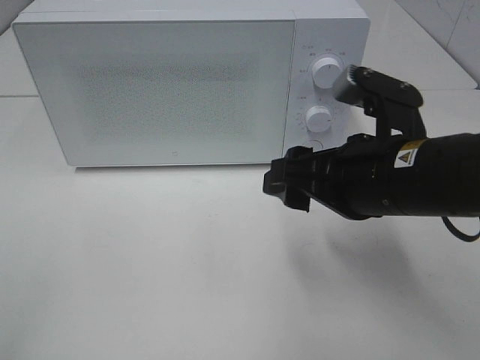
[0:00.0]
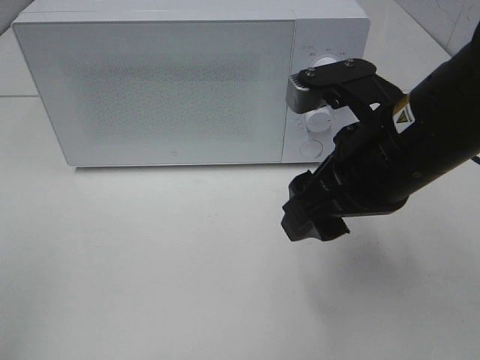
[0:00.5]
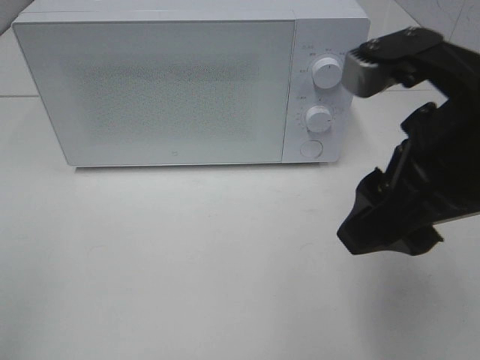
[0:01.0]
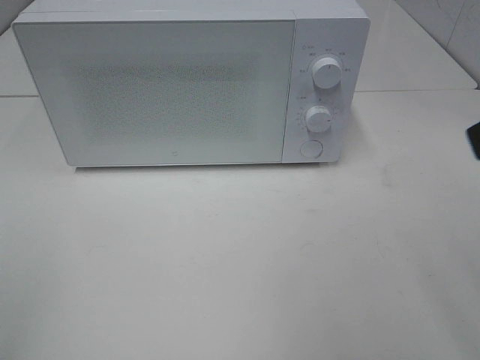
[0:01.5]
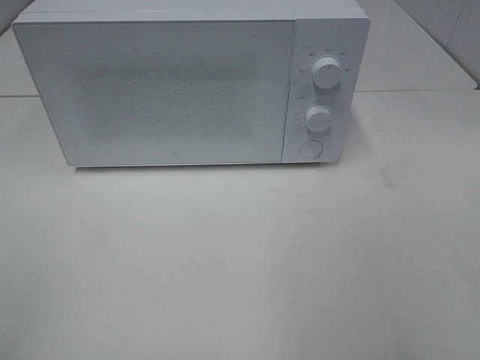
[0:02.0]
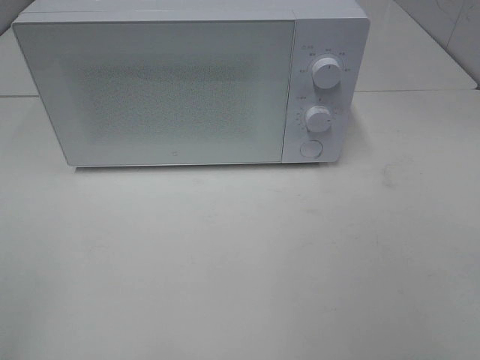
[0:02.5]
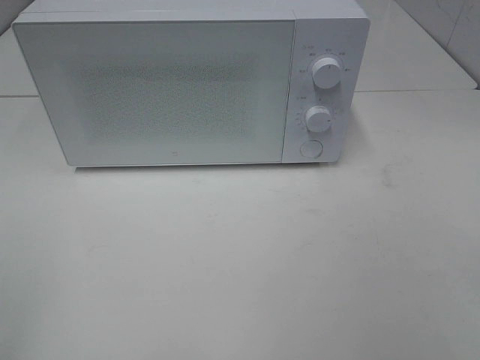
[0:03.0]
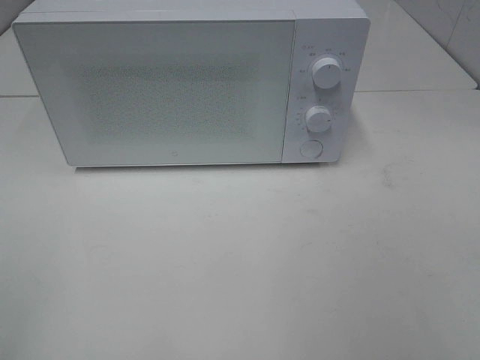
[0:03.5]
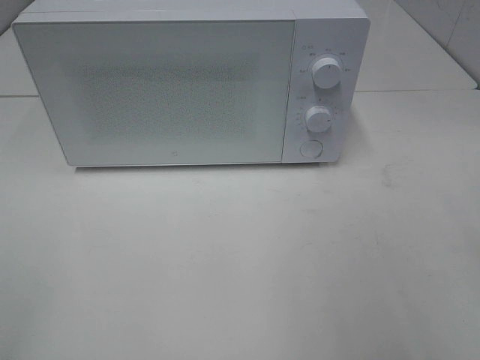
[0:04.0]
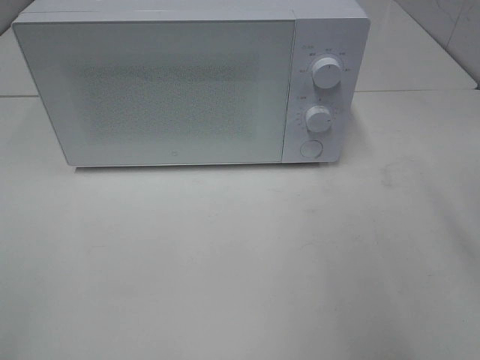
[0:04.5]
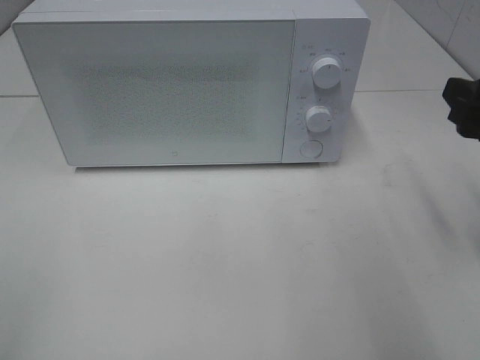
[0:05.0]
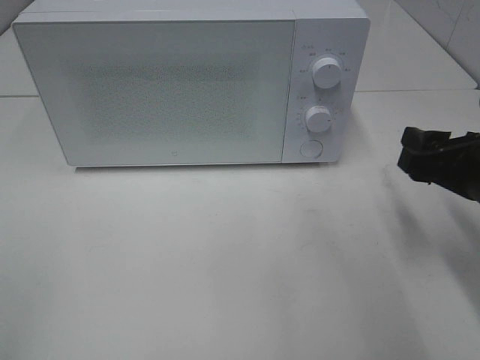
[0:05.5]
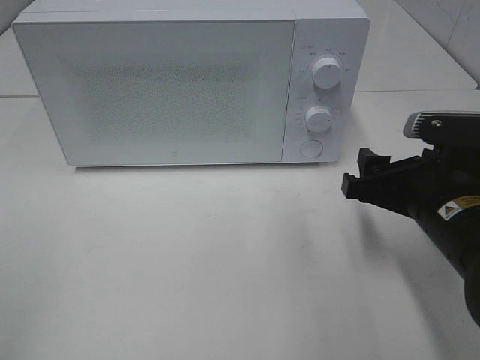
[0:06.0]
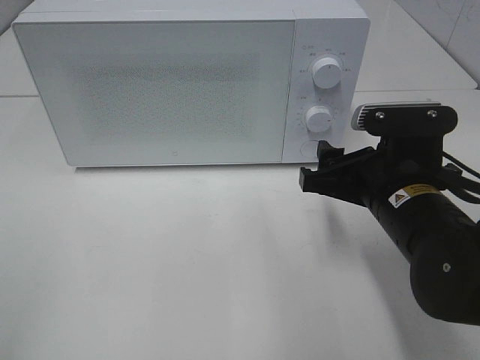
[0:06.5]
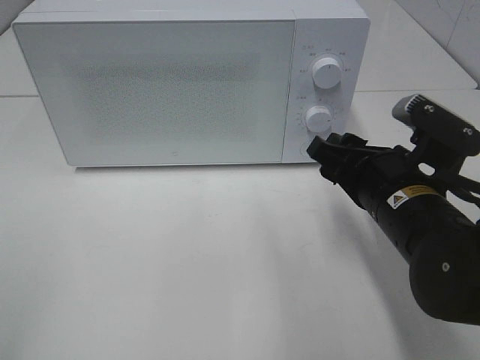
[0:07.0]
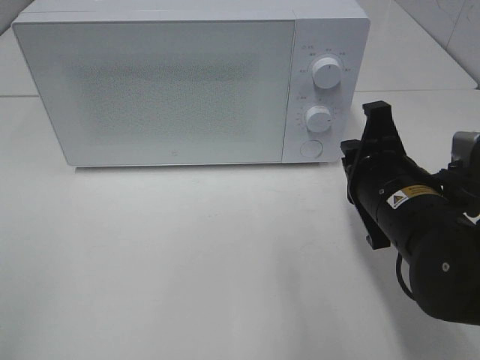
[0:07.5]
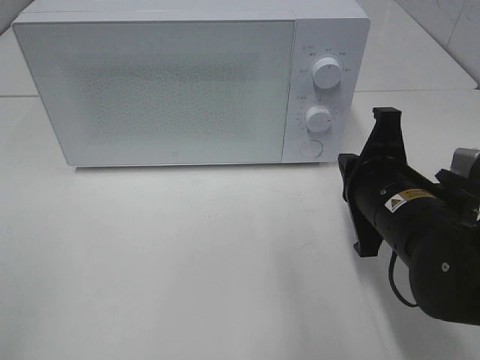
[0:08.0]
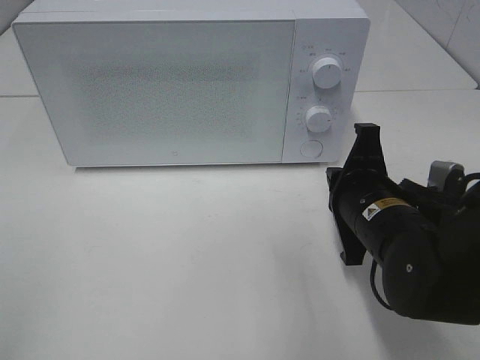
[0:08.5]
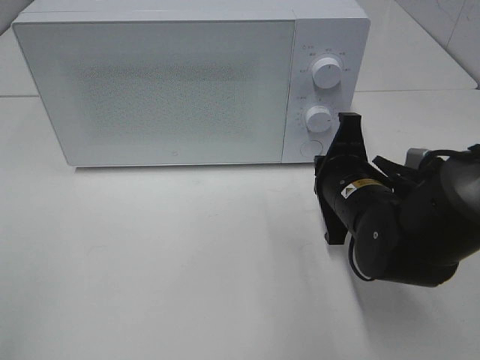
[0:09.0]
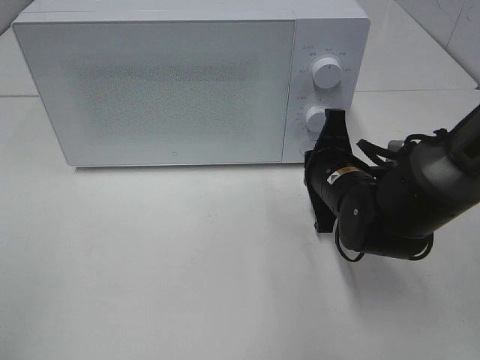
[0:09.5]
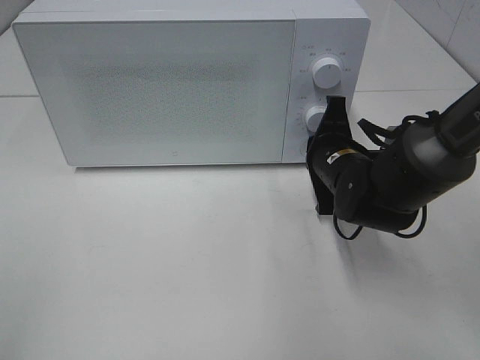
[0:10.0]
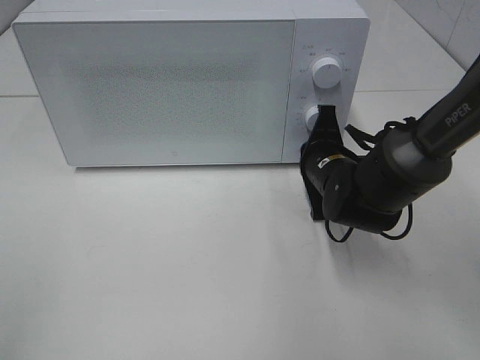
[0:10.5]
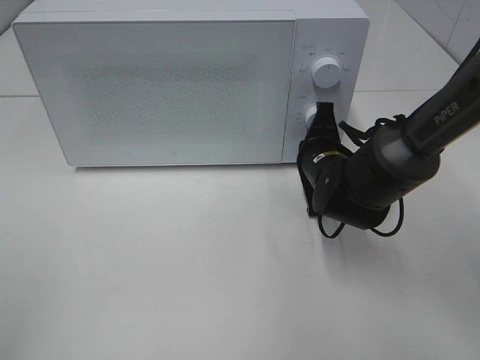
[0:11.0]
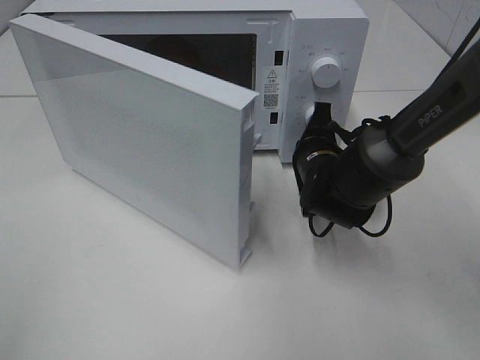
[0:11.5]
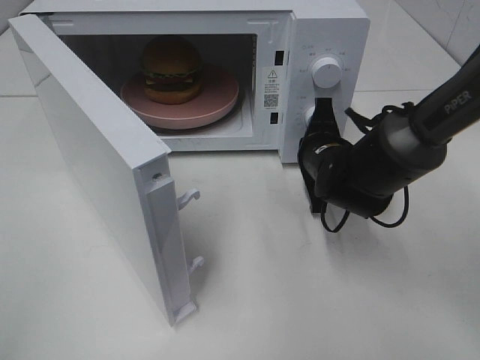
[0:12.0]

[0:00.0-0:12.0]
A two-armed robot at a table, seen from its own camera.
Task of the whole recording: Heat the burger.
0:00.0 to 0:02.0: The right gripper travels backward, to the right and upward by about 25 cm.
0:04.0 to 0:06.0: The right gripper shifts some 20 cm downward, forward and to the left.
0:06.0 to 0:08.0: The right gripper closes.
0:08.0 to 0:10.0: The right gripper is displaced forward by roughly 10 cm.

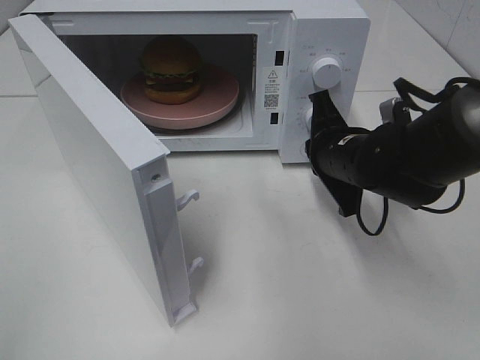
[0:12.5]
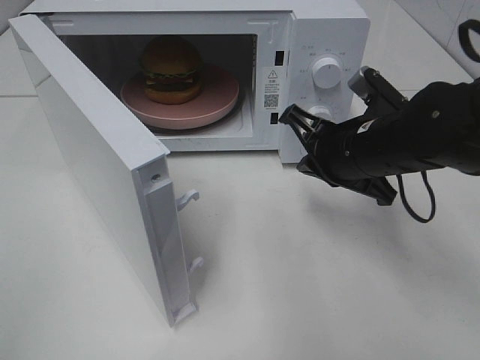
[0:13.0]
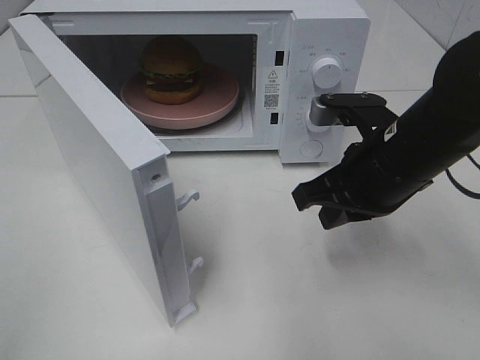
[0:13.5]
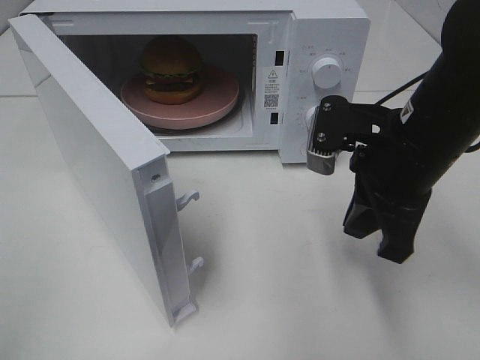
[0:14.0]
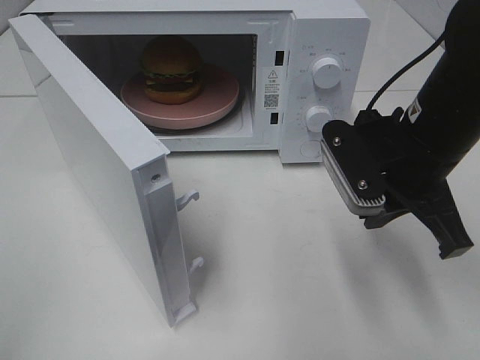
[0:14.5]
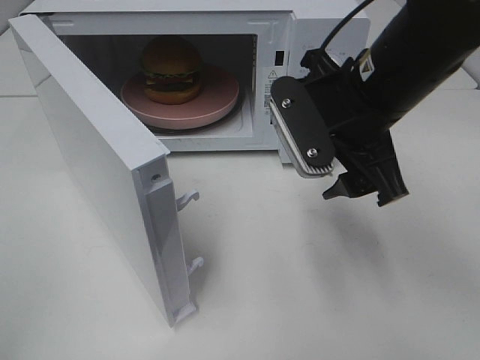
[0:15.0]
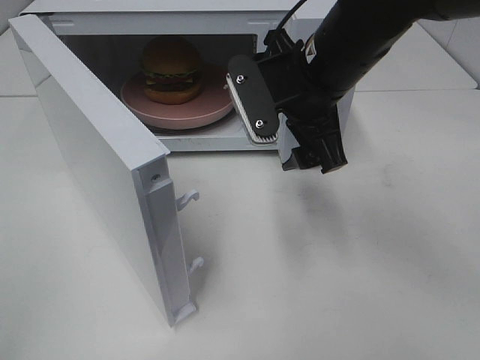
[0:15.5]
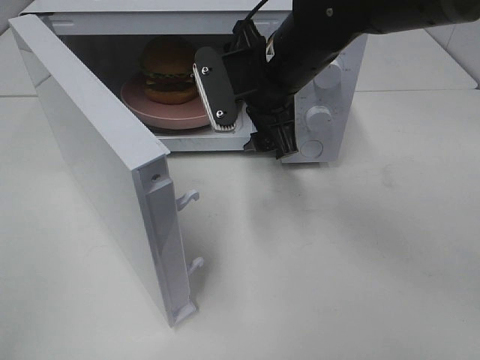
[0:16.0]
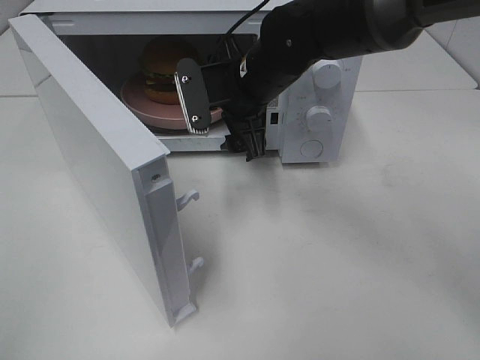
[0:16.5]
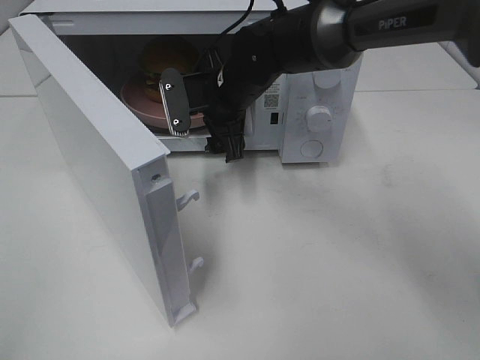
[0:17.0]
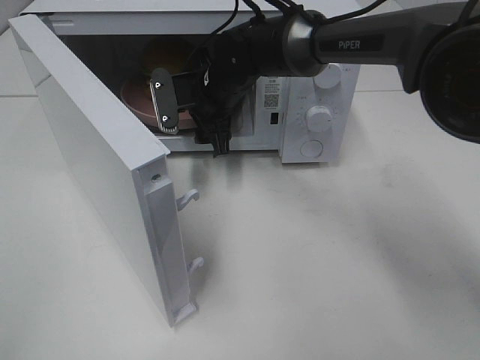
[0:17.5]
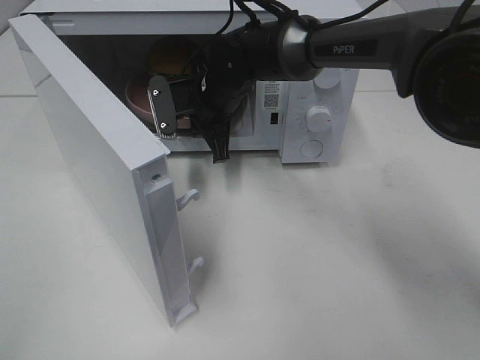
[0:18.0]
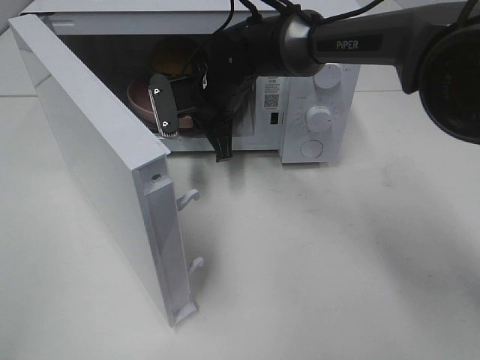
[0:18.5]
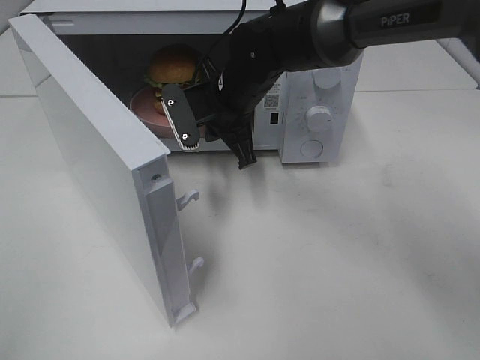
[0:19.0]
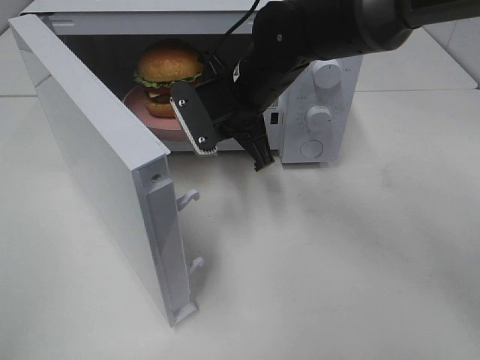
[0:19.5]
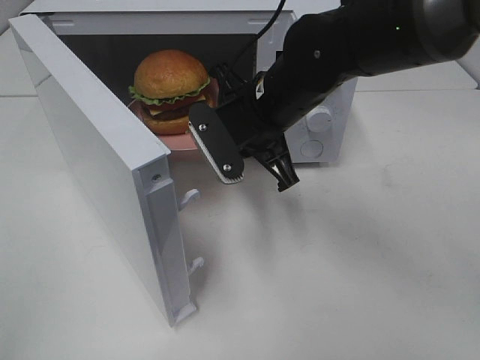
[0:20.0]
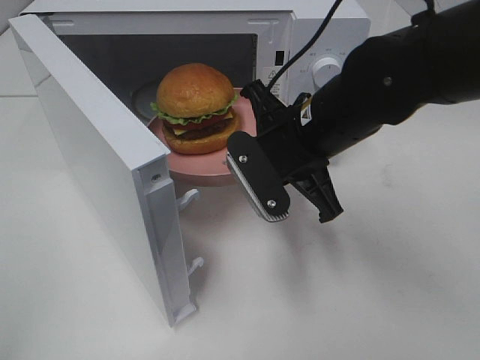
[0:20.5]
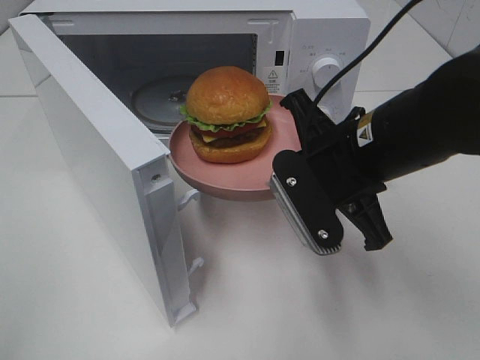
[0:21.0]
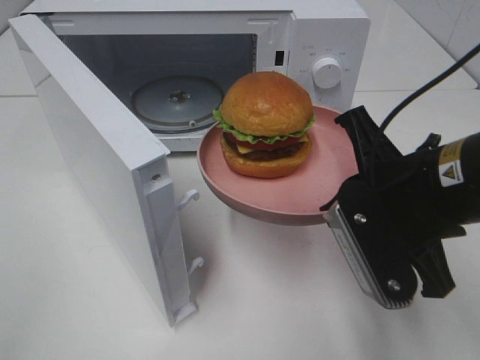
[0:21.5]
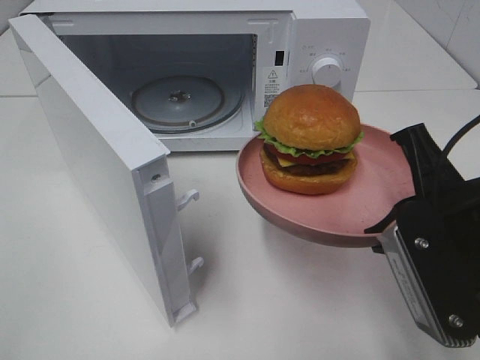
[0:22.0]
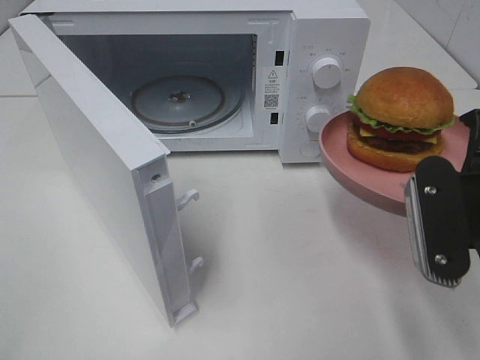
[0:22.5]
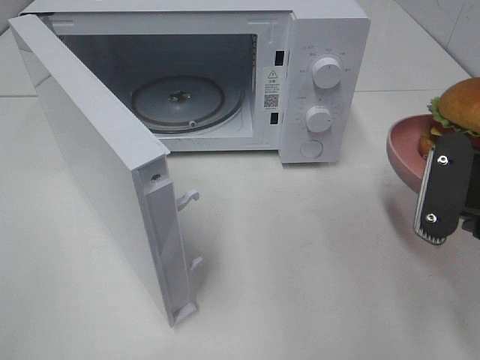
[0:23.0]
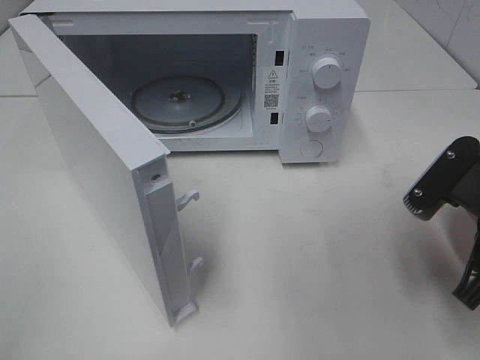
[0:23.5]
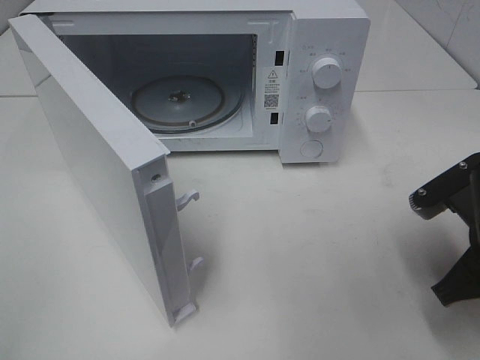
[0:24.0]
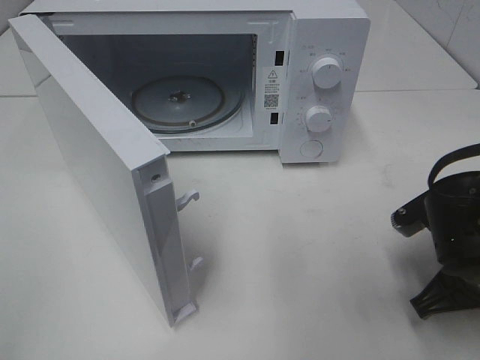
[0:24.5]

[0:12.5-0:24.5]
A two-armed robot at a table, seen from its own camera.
Task of the whole recording: Heat the burger.
Step, 0:13.0 to 0:17.5: Right hand: grab the plate with the hamburger.
0:12.5 to 0:14.5: The right gripper travels upward and backward by some 10 cm.
0:14.5 to 0:16.5: The right gripper moves to the left and forward, some 20 cm, and opens.
0:16.5 to 0:18.5: The right gripper heads forward, covering approximately 5 cm, and closes up.
0:18.5 to 0:20.5: The right gripper shifts roughly 20 cm backward and to the right.
0:20.5 to 0:22.5: The right gripper travels backward and to the right by approximately 15 cm.
0:22.5 to 0:24.5: The right gripper travels downward by approximately 10 cm.

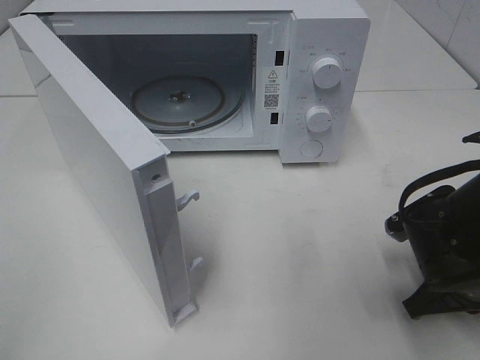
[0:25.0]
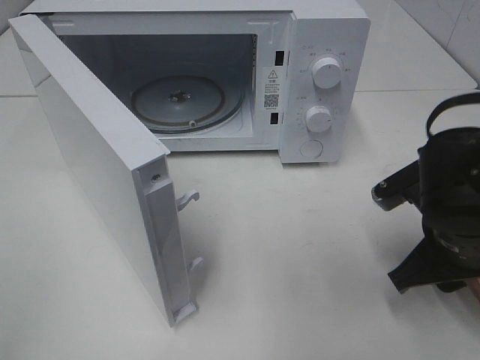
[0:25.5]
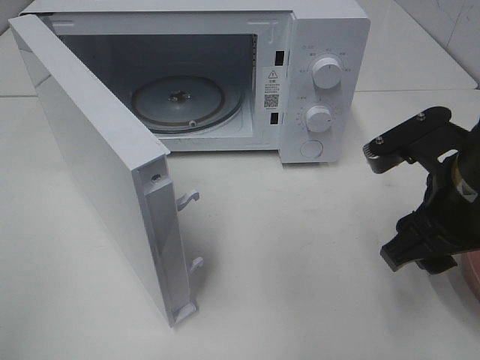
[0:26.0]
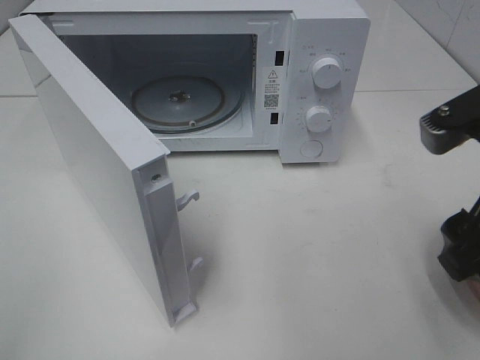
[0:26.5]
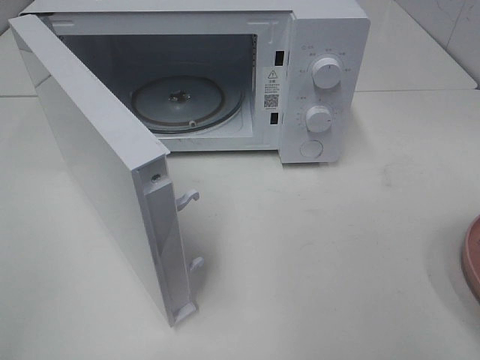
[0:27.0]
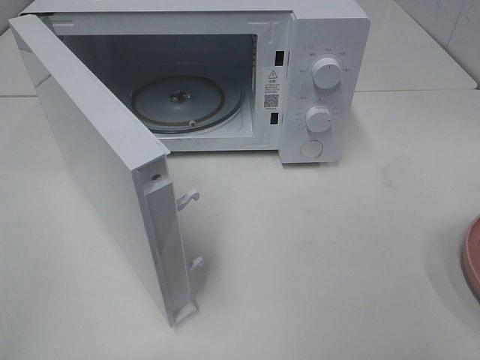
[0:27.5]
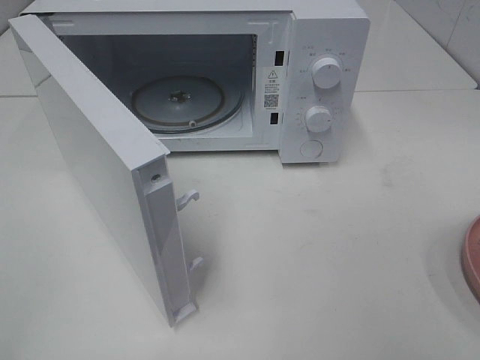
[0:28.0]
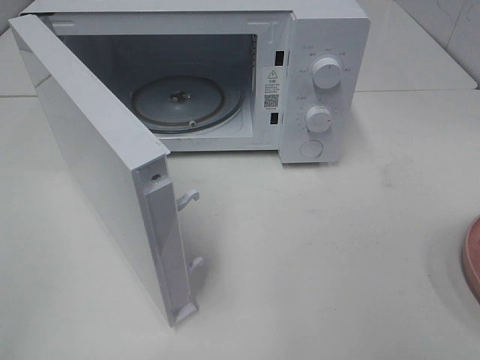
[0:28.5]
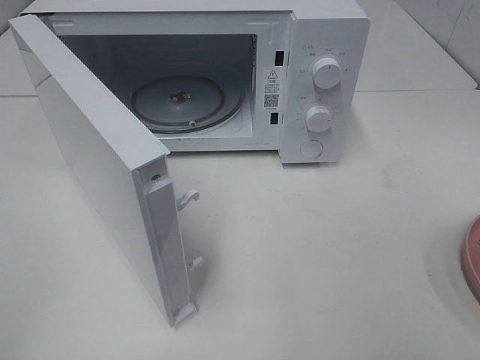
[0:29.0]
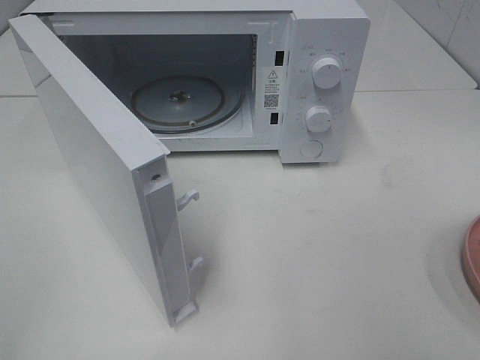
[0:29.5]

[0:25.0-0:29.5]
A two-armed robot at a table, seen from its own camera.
Task of the whole recording: Heat the burger.
0:25.0 to 0:27.0: The right gripper shifts roughly 25 cm upward and backward, and opens up.
